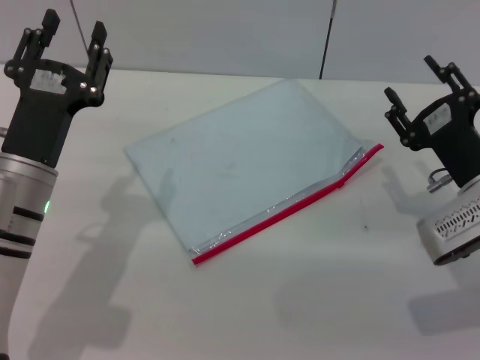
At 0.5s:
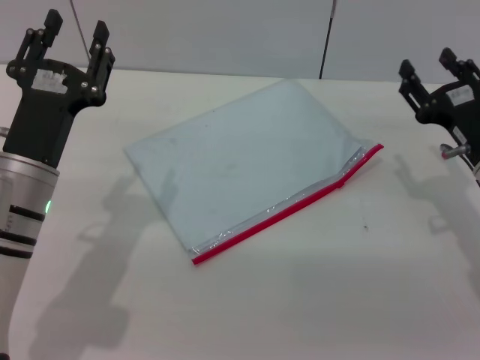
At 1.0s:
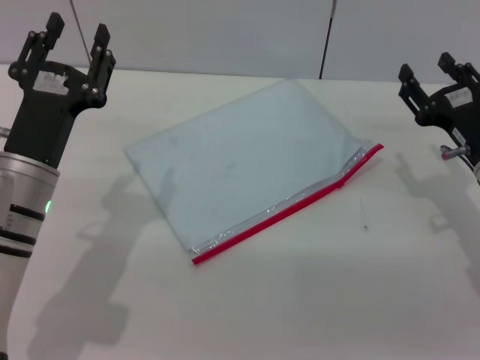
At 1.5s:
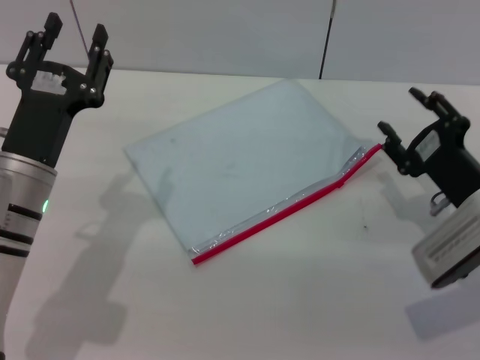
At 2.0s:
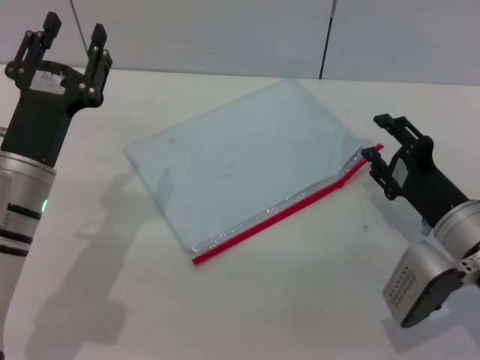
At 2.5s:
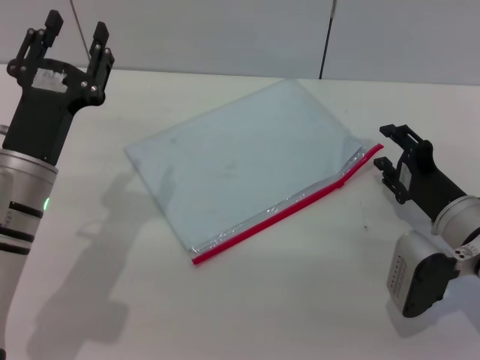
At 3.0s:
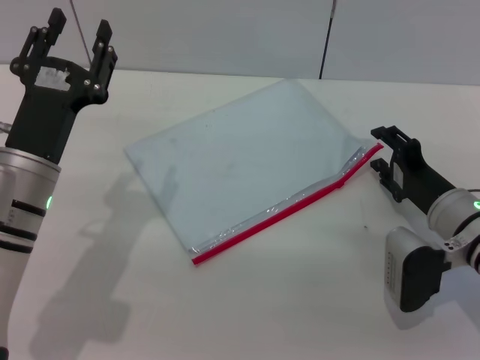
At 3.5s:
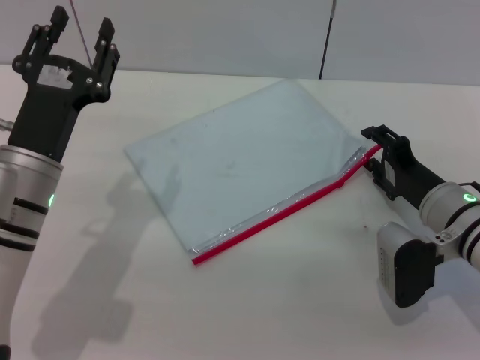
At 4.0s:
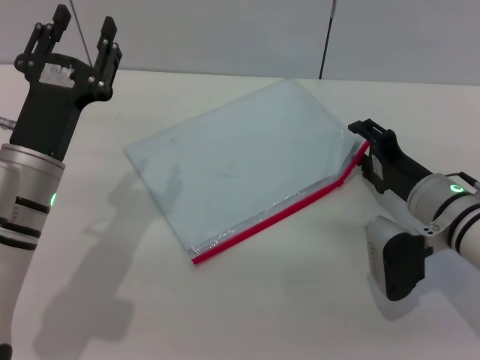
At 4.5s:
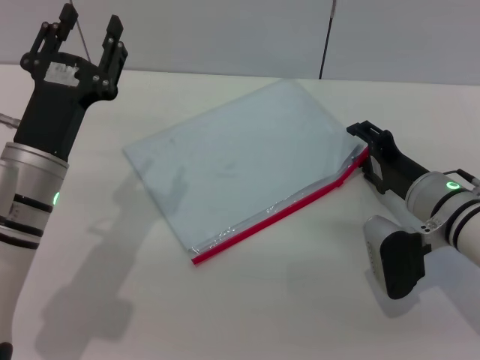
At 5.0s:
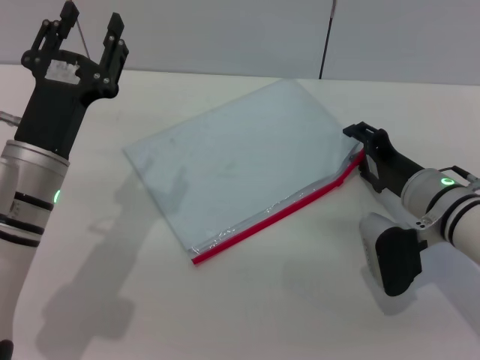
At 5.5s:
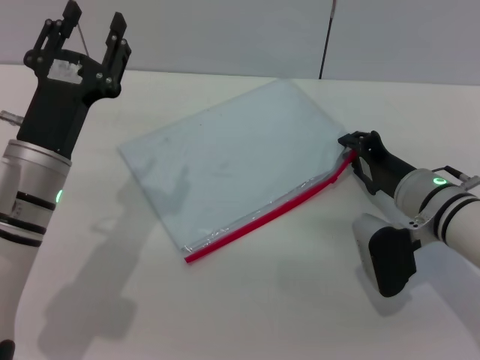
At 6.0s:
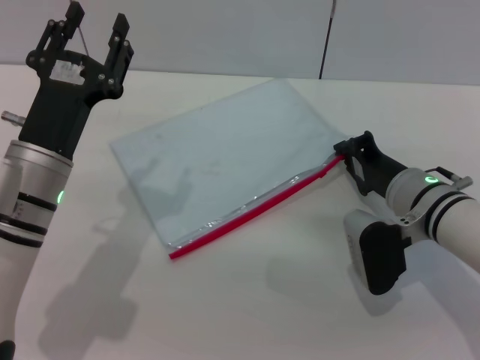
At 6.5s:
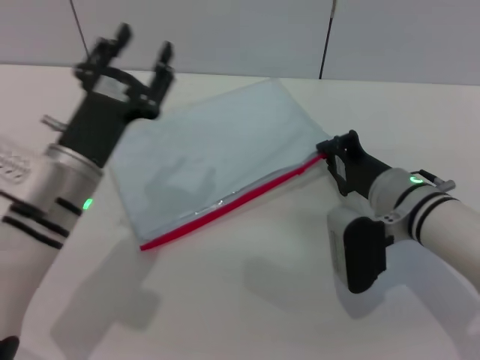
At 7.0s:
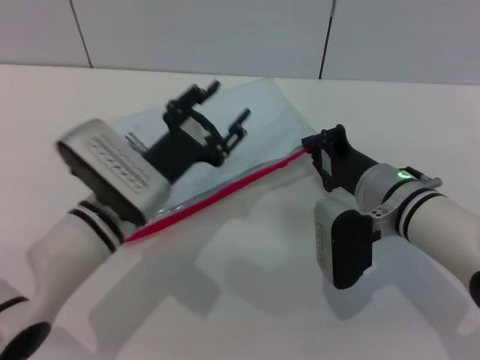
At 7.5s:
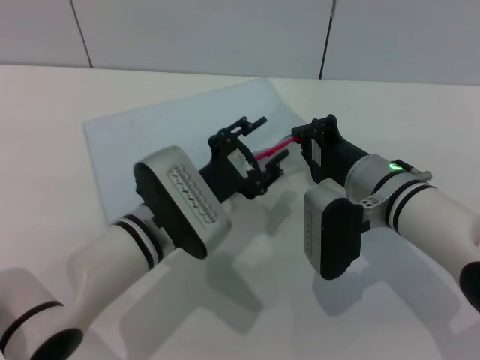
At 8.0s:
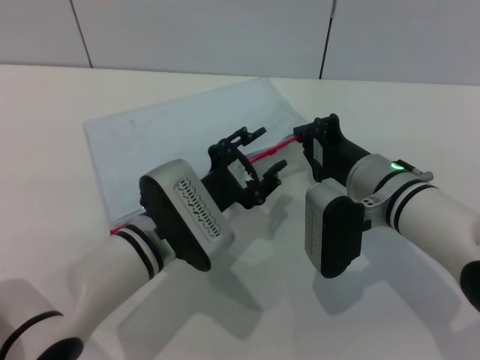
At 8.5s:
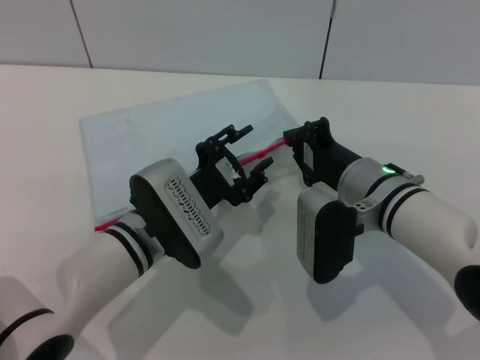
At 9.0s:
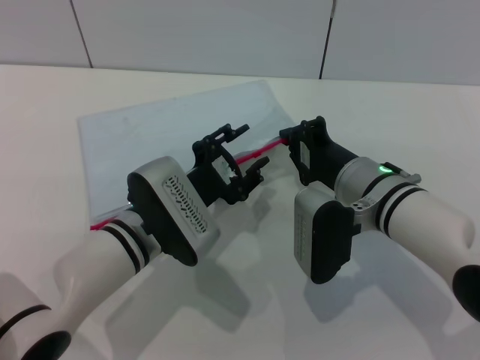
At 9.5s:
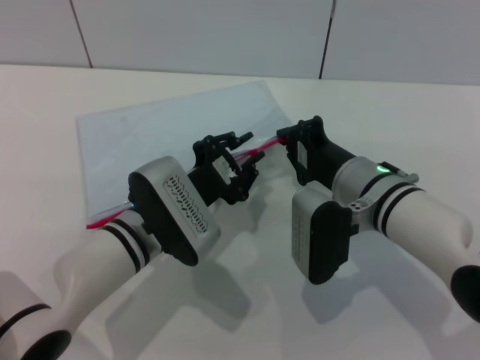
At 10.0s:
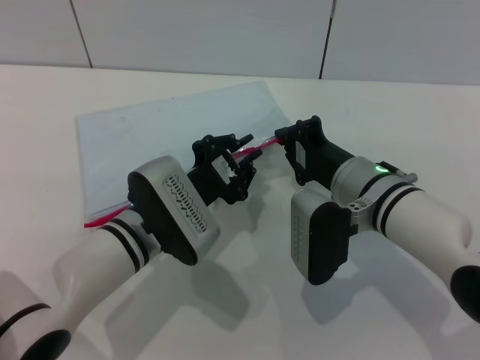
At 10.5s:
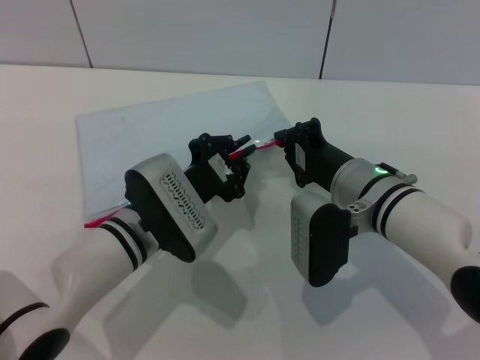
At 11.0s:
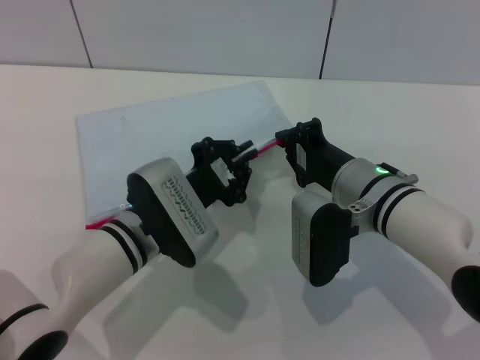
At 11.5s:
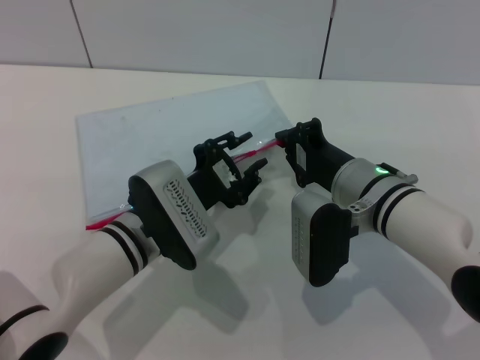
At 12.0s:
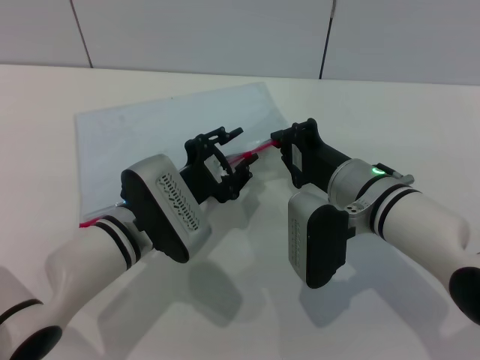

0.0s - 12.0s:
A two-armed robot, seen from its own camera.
Step, 0.0s - 6.5s: Pick up the transparent plastic bag with the right gripper.
4.0s - 6.0s: The right gripper closes its fingers.
6.0s - 8.0s: The left gripper moves to the right, some 10 cm.
8.0s - 10.0s: The left gripper closes up.
10.0s - 12.0s: The left gripper opens up.

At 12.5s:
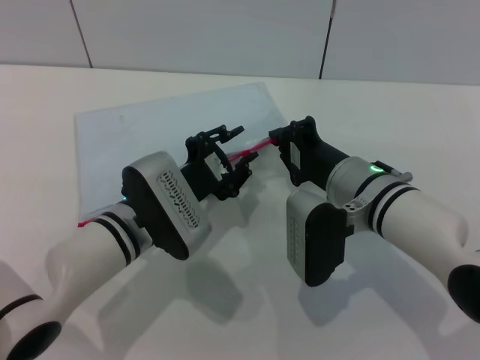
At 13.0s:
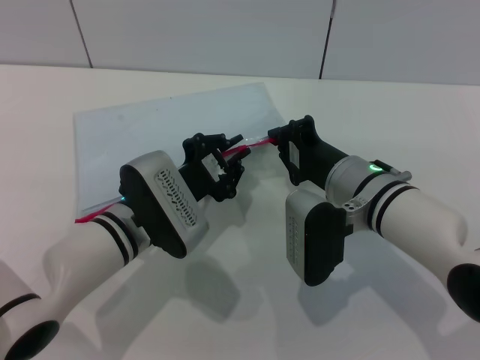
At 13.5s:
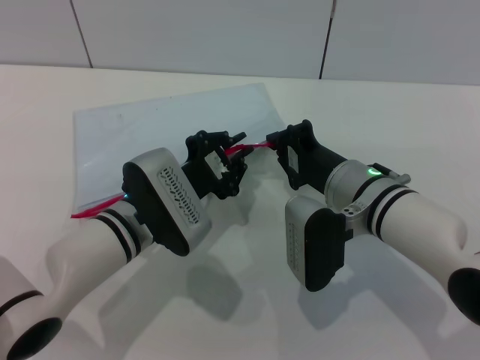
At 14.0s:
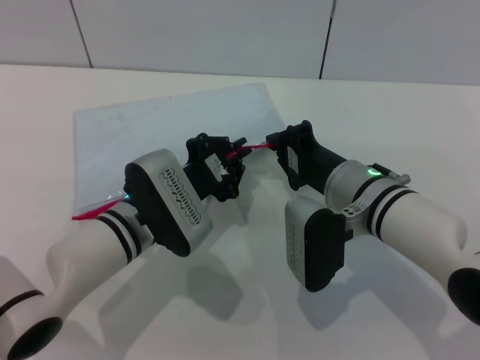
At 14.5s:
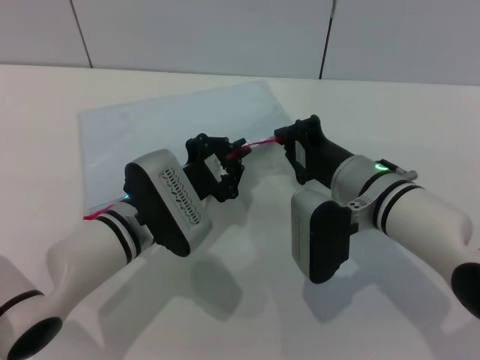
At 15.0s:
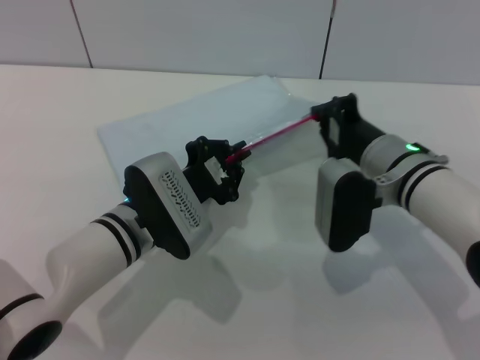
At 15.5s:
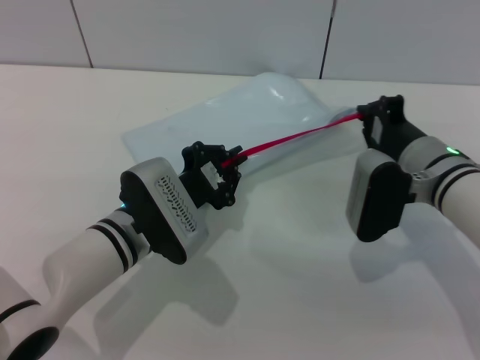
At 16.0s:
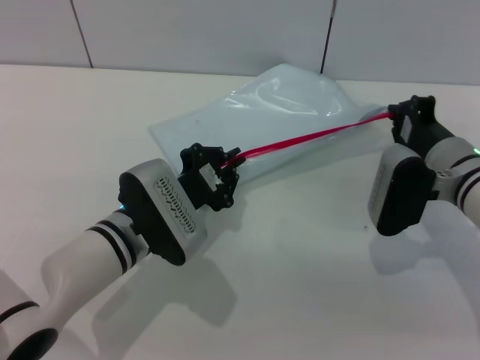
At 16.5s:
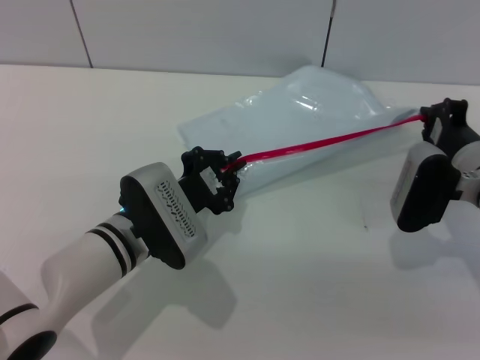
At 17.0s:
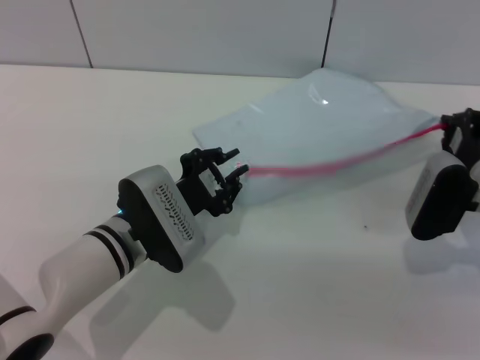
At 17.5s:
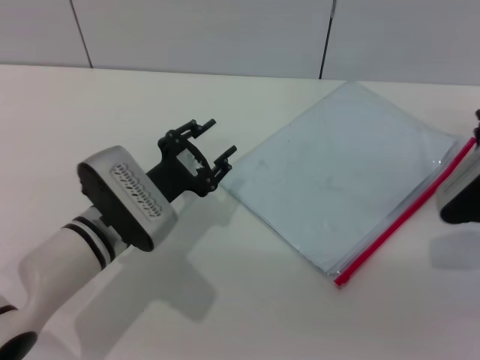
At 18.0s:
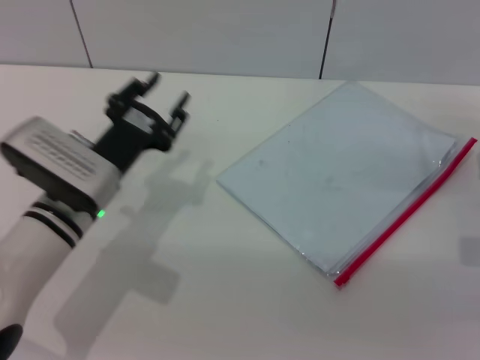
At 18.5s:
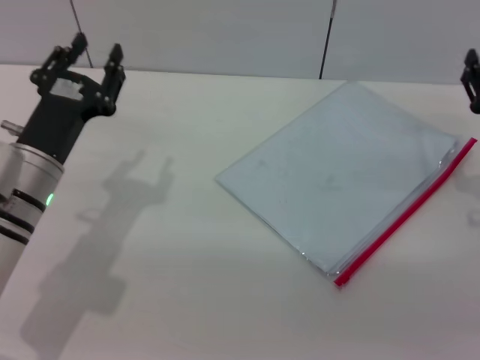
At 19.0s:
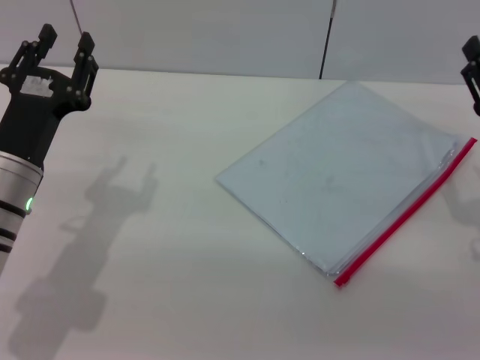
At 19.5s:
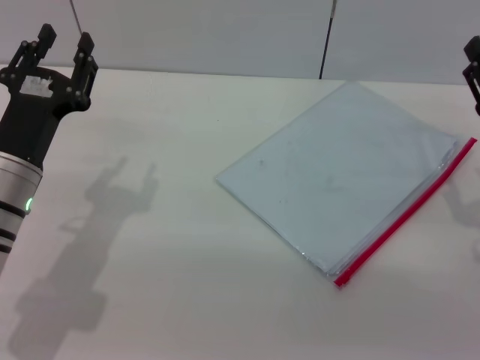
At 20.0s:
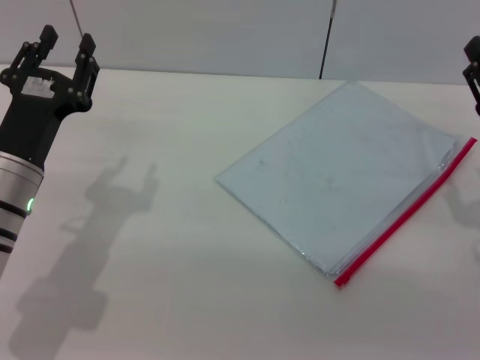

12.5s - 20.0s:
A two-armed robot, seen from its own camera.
Step, 12.5s - 16.5s: Pulling up the zipper on the transparent plastic bag with the left gripper to close it.
12.5s - 14.5s: The left gripper closes its fingers.
14.5s - 16.5s: The right gripper goes about 10 cm to the right.
16.5s - 18.0s: The left gripper goes some 5 cm to the left, and opens its fingers. The right gripper goes some 5 cm to the right, and opens up.
18.0s - 20.0s: The right gripper shifts by roughly 5 cm, while the left gripper goes about 5 cm to the left.

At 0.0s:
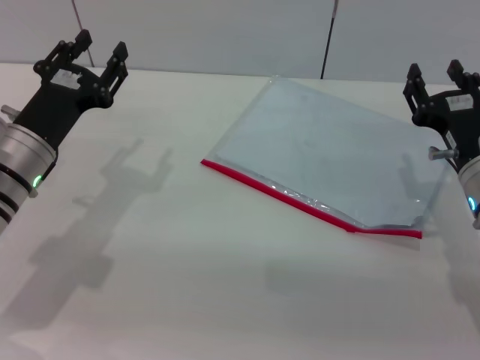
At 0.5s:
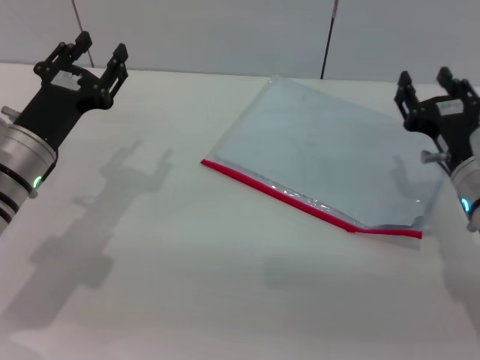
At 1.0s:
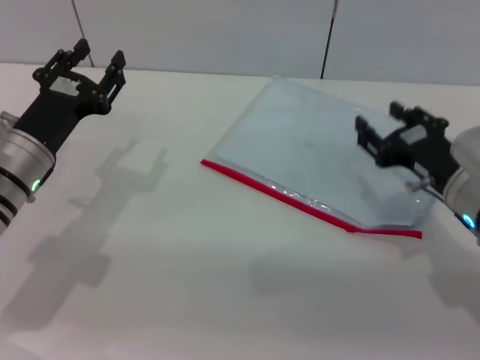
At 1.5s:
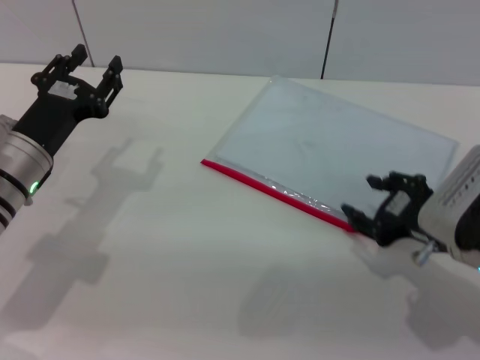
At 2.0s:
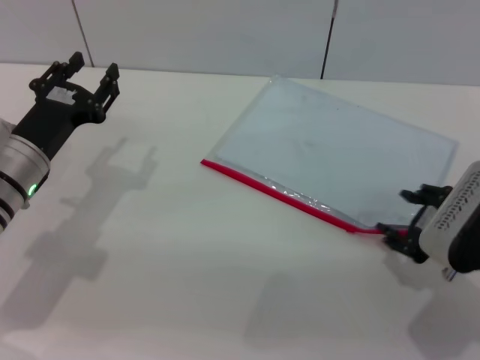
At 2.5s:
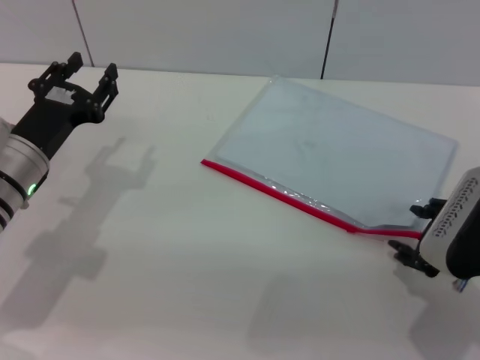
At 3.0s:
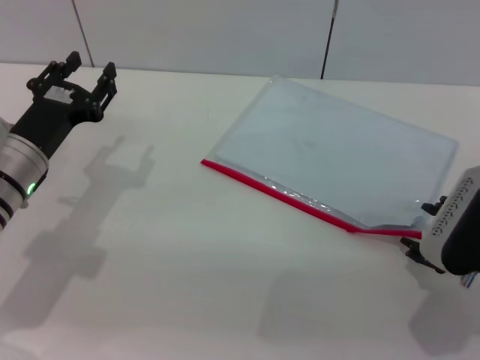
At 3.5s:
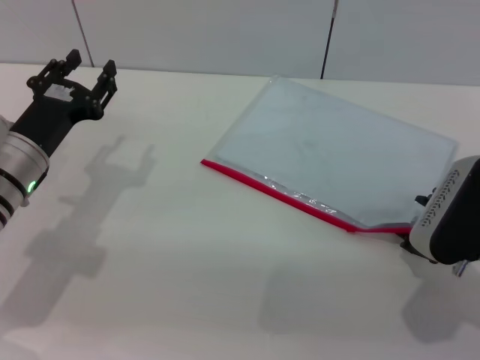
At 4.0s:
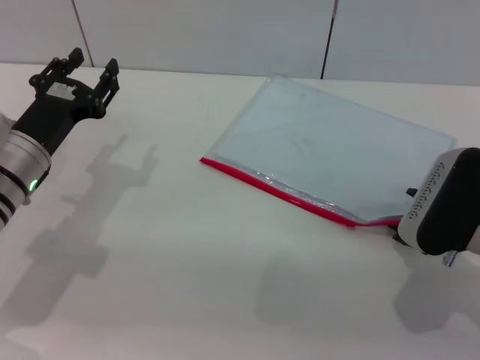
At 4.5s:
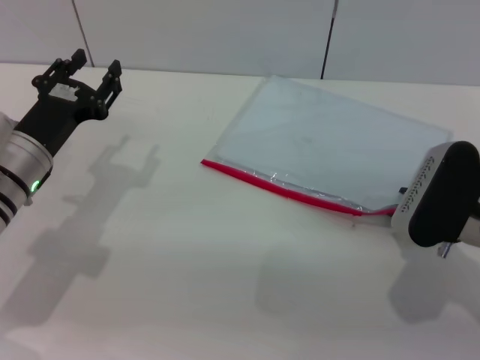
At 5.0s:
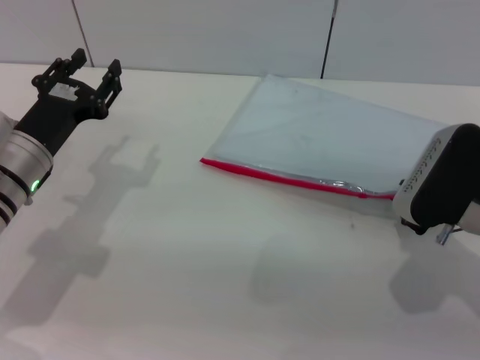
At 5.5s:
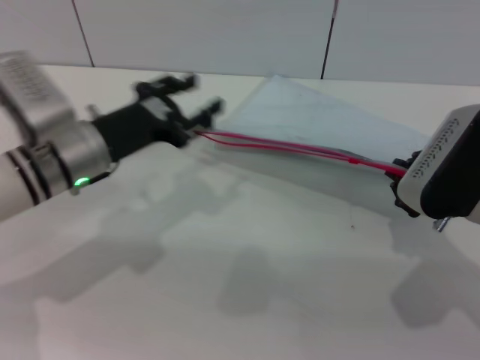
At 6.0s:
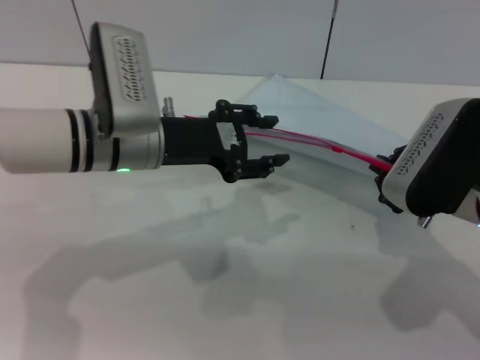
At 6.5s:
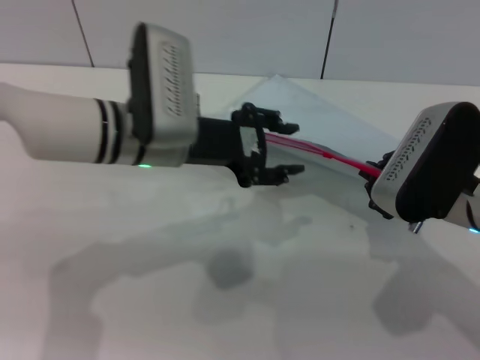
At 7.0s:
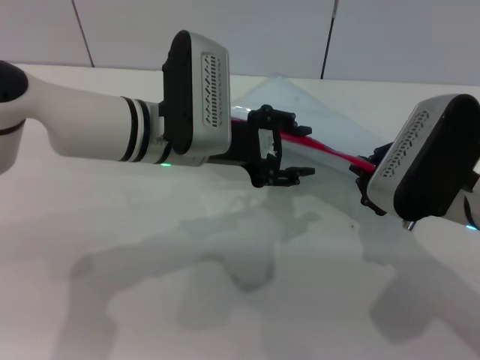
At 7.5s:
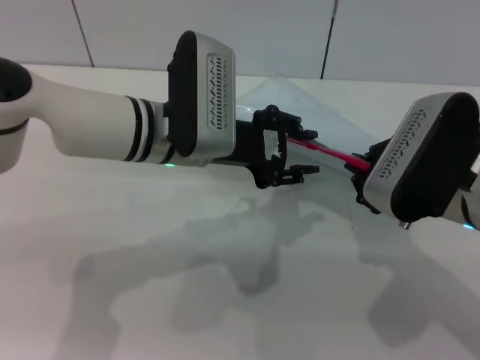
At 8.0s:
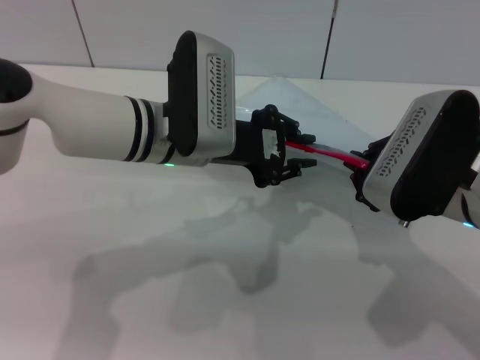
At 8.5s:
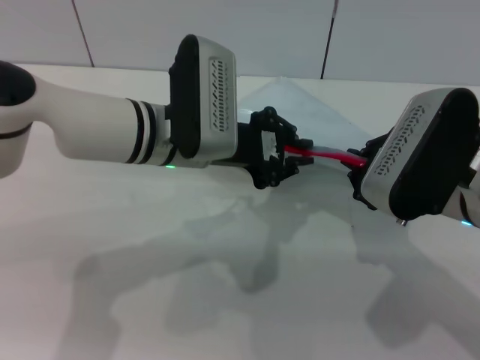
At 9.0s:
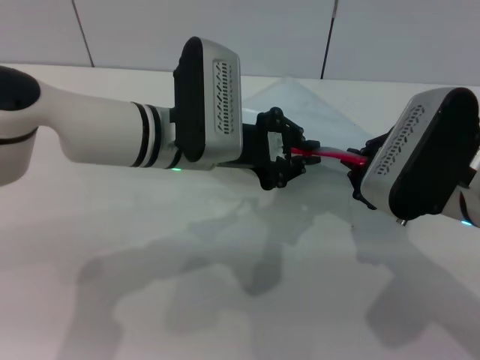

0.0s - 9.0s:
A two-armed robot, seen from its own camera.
Step, 0.0s - 5.0s: Pick up the transparent plastic bag with the right gripper.
0.0s - 2.0s: The right gripper travels backward by roughly 5 cm.
2.0s - 4.5s: The grippers stay close to where they were, moving slightly.
4.5s - 7.0s: The right gripper moves upward, about 5 cm, and closes. Meanwhile the left gripper heads to the right and upward, covering about 15 cm.
7.0s - 9.0s: The left gripper closes up.
